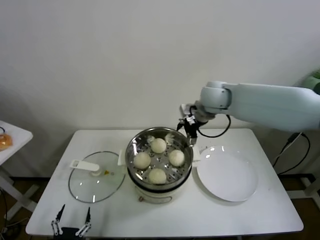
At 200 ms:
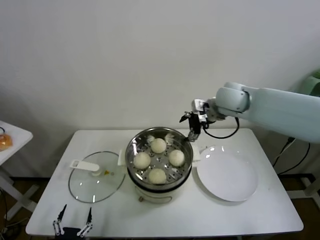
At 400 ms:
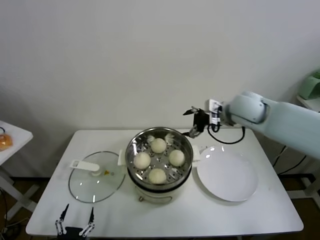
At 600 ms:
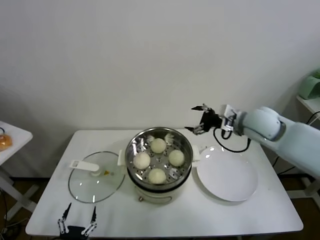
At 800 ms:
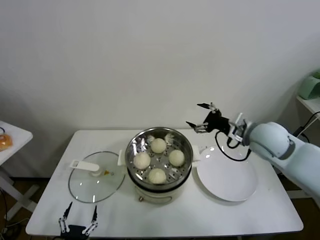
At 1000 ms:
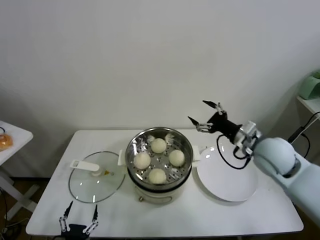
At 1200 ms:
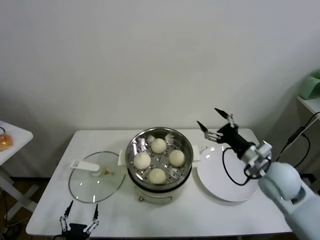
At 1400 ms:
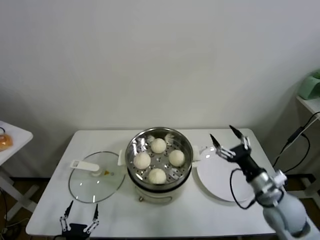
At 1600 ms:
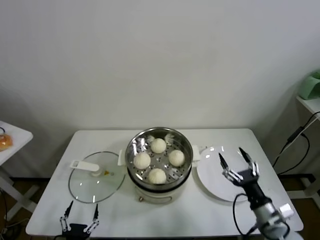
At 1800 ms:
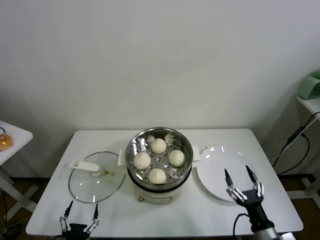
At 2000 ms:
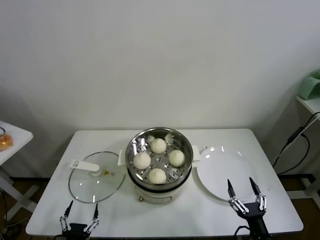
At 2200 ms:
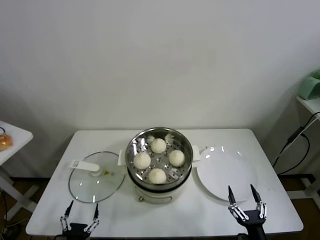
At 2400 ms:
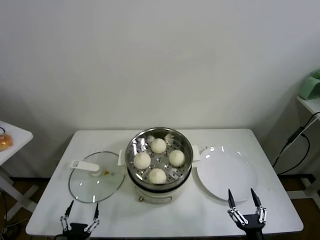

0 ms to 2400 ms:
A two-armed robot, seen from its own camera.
Task of the whole recording: take steamed baozi put them in steamer.
0 ms to 1200 ms: The right gripper moves backward, to the right and downward, approximately 30 cm.
1200 ms to 2400 ms: The right gripper shifts about 35 cm backward and downward.
